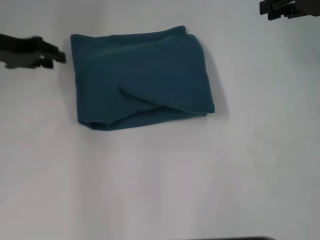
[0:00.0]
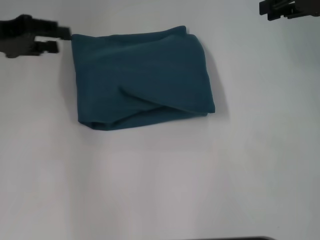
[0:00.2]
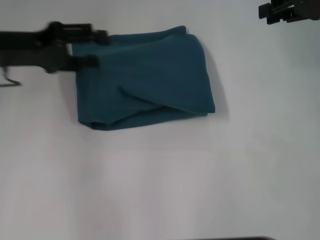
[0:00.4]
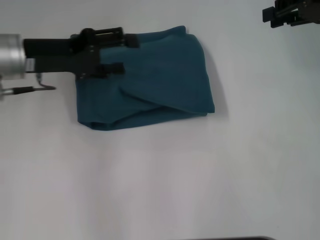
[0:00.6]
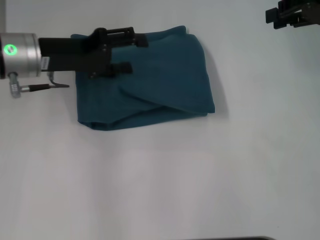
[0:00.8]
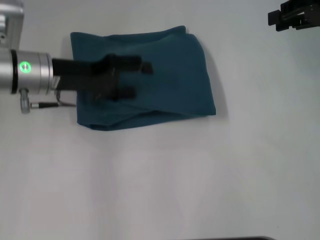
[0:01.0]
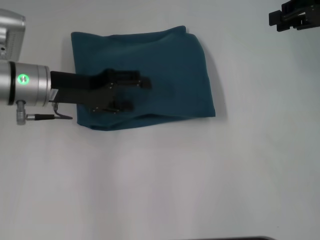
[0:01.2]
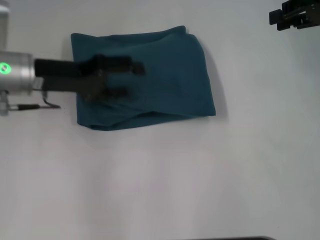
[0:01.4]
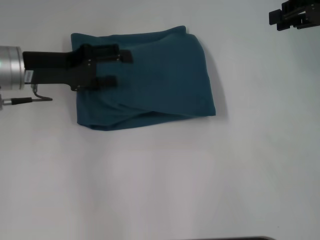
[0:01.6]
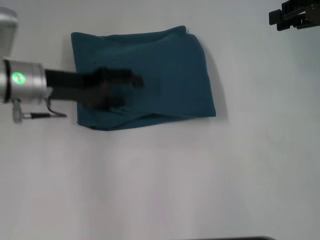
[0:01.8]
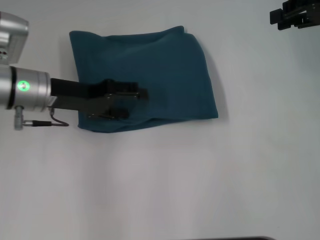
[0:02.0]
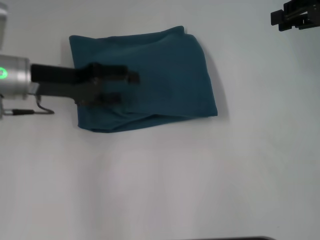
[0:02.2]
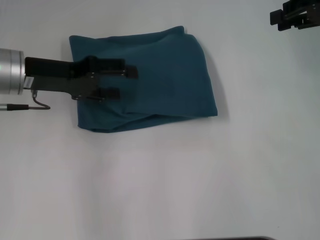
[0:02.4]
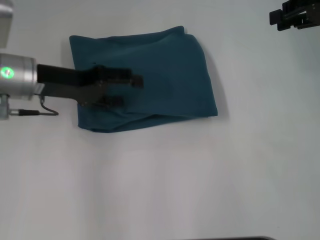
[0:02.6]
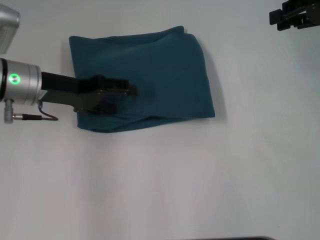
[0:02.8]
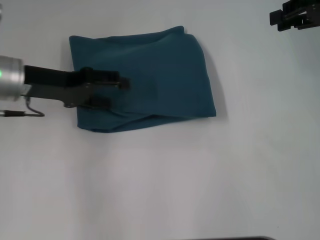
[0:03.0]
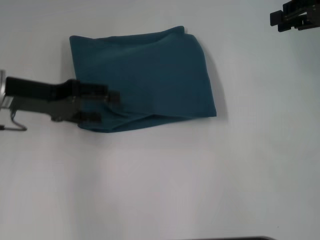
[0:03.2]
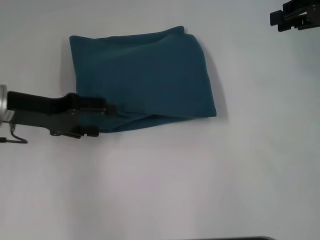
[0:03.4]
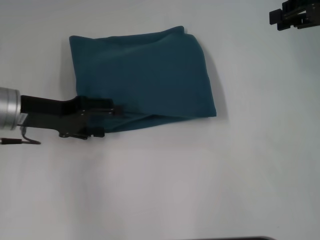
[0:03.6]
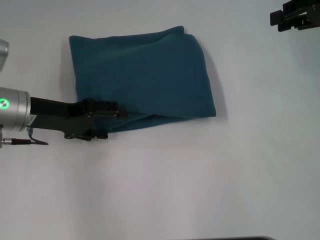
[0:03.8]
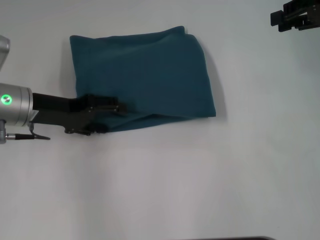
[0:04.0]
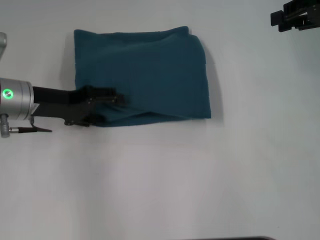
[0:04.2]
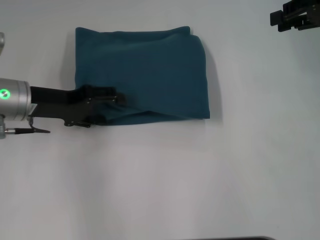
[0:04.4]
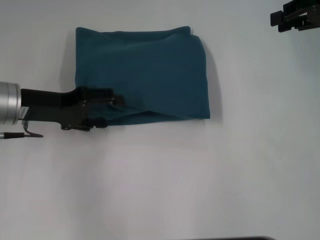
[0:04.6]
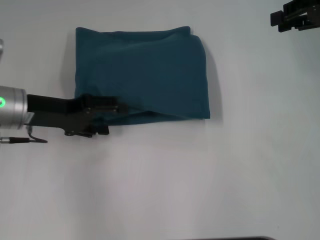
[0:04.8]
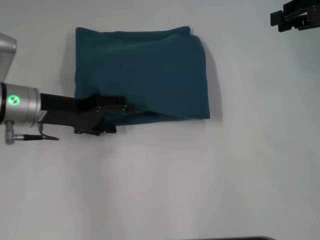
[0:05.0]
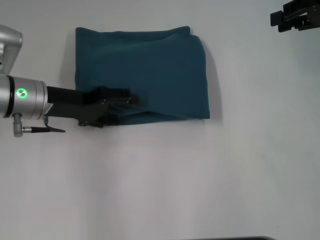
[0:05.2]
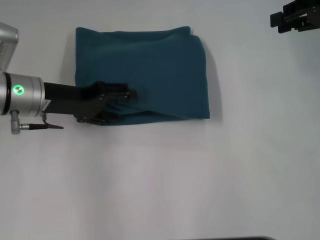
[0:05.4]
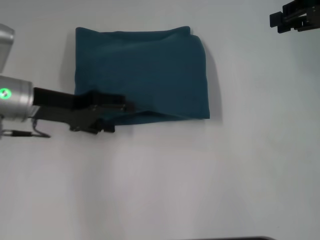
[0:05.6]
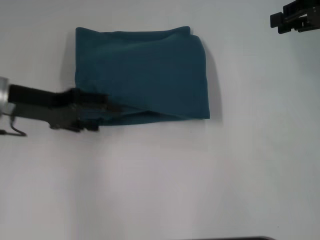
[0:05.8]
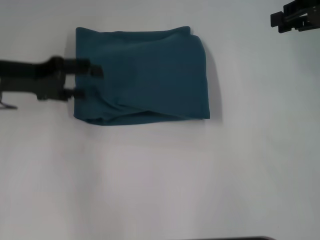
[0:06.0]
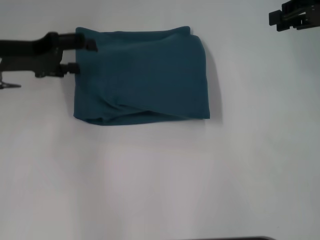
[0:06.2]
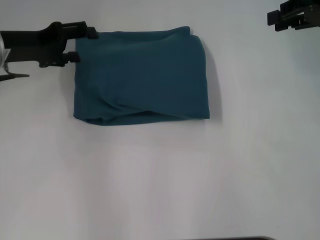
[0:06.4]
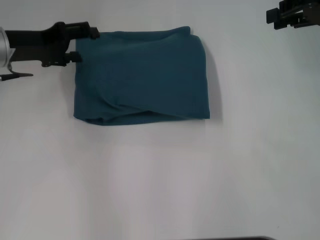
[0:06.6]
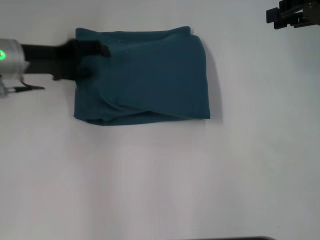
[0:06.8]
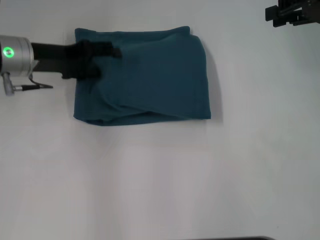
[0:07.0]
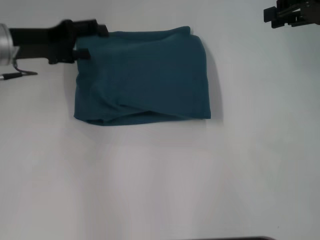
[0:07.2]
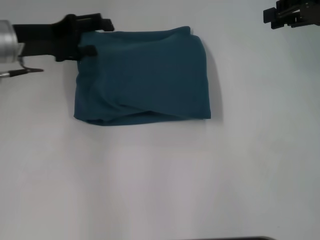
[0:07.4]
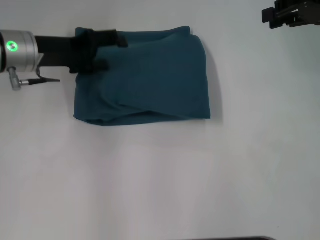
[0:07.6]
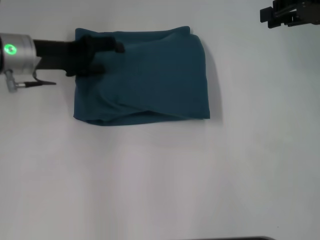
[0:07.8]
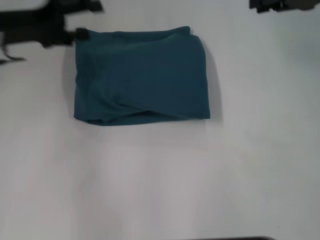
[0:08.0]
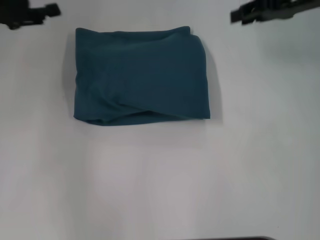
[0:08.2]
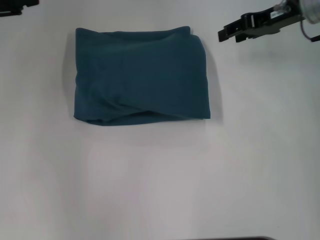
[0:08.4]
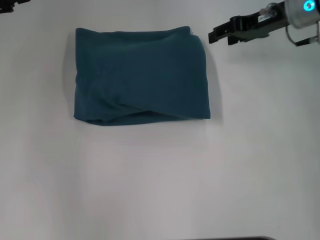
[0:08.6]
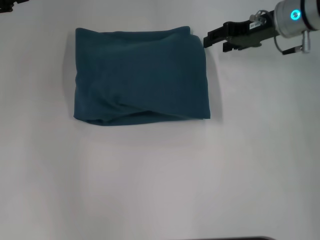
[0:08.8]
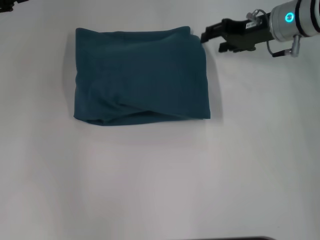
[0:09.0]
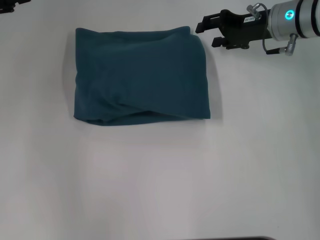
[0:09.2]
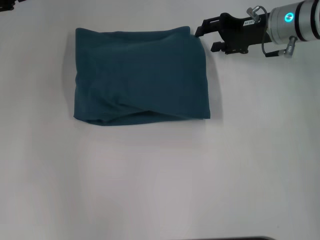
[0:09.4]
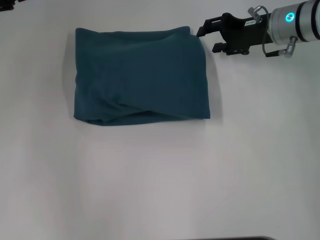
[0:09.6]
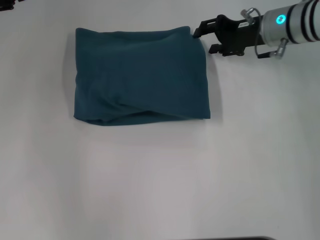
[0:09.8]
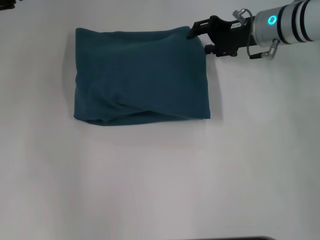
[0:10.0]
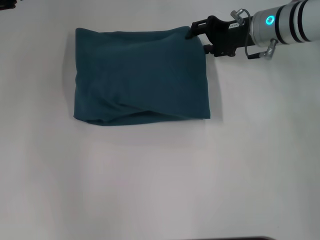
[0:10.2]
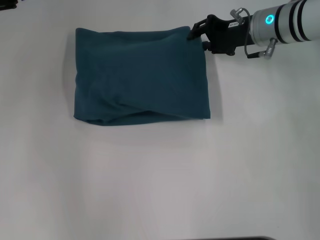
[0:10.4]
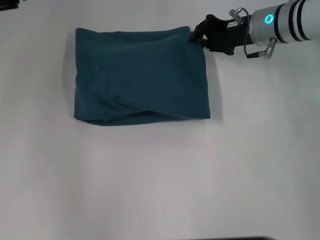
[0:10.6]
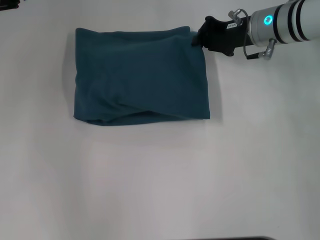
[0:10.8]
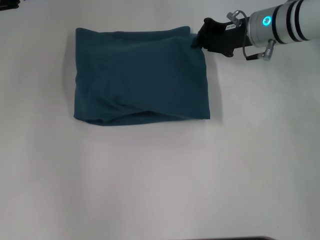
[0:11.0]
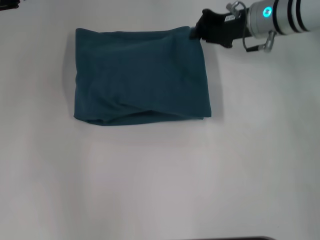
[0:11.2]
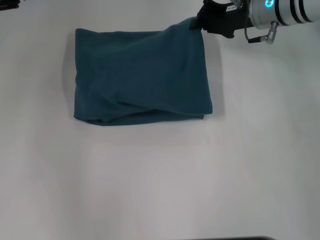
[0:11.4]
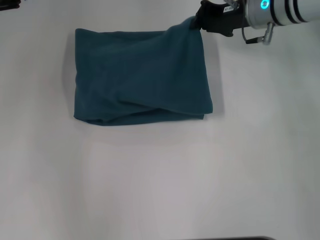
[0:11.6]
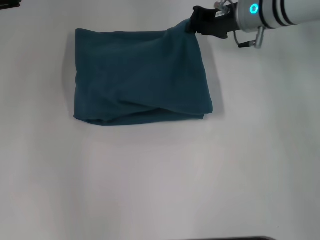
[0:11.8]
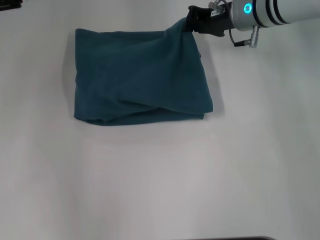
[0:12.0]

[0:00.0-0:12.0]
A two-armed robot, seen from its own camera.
0:00.0 to 0:01.6: The left gripper travels to the right by roughly 5 cm, and opens its fingers.
0:01.6 to 0:04.4: The grippers stay close to where they were, moving slightly.
0:04.4 to 0:06.0: The left gripper moves some 5 cm.
0:06.0 to 0:07.6: The left gripper changes place by approximately 5 cm.
0:07.6 to 0:09.0: The left gripper goes roughly 15 cm to the left and upward, while the right gripper is displaced downward and to the left by about 15 cm.
0:09.0 to 0:10.4: The grippers move only a little.
0:10.4 to 0:12.0: The right gripper closes up.

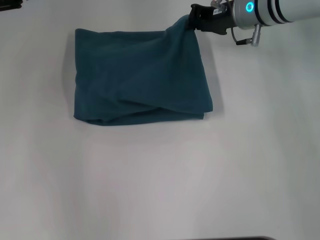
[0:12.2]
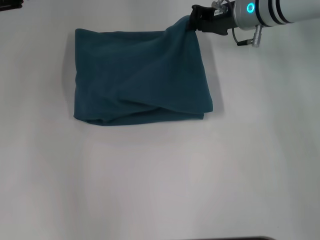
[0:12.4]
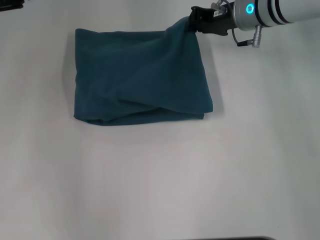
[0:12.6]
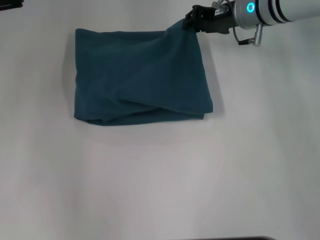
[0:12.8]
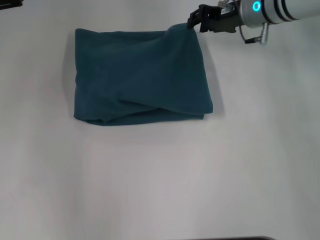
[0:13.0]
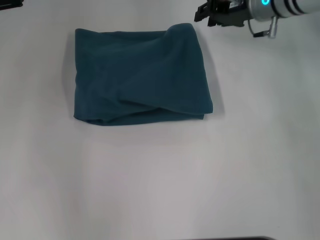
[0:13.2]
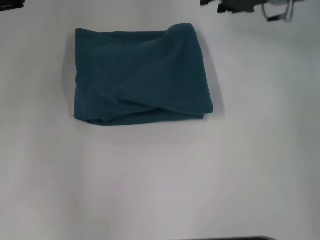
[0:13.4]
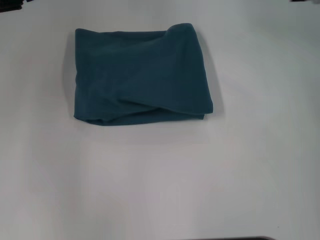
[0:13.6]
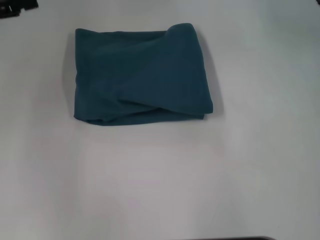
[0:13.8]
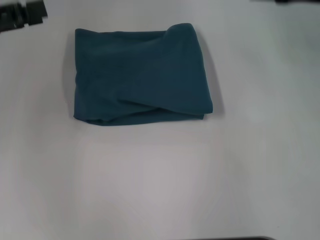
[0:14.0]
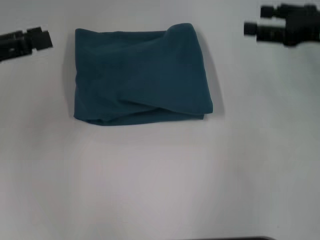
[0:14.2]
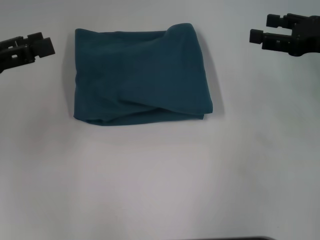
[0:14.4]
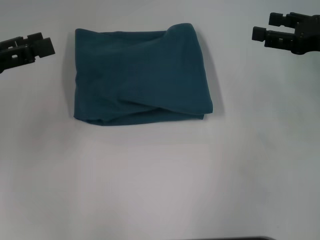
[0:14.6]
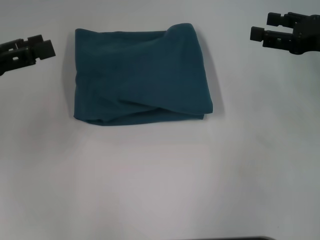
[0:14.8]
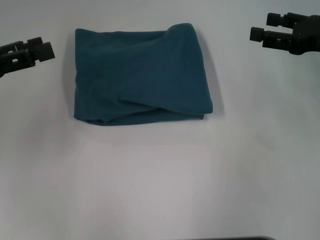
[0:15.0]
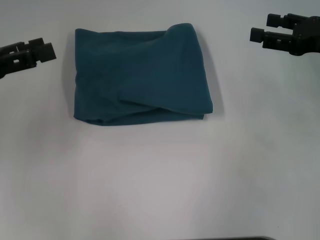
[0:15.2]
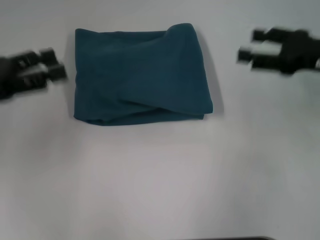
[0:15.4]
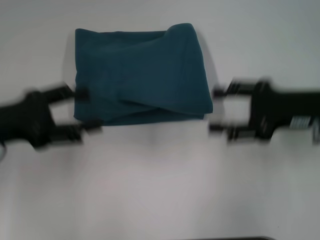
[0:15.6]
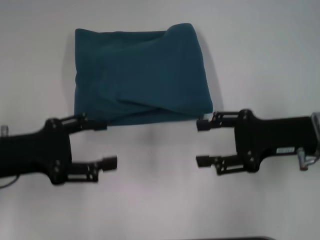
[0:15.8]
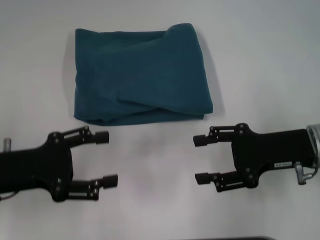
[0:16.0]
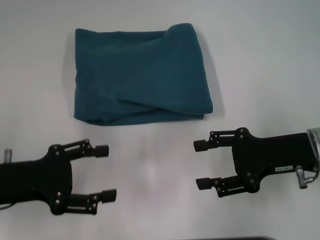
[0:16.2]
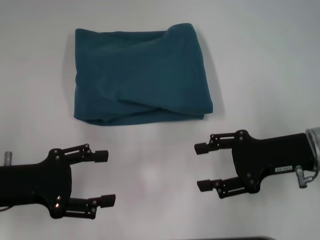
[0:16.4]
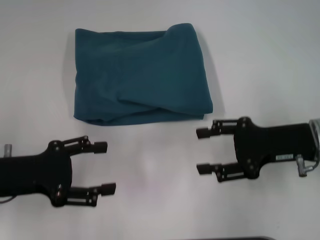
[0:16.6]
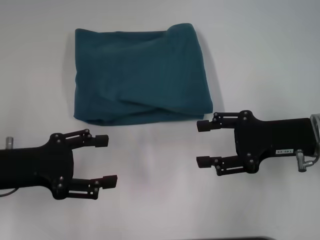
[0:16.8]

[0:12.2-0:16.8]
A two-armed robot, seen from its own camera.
0:12.2 to 0:13.8: The right gripper travels to the right and upward by about 15 cm, and opens its fingers.
0:13.8 to 0:15.2: The left gripper ends up roughly 5 cm from where it was. The right gripper shifts approximately 10 cm backward and downward.
0:15.2 to 0:16.8: The left gripper shifts about 10 cm downward, to the right and backward. Meanwhile the right gripper heads to the left, downward and backward, covering some 10 cm.

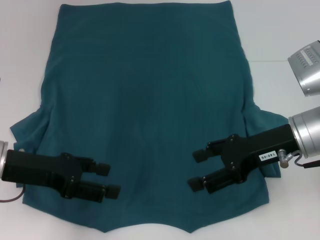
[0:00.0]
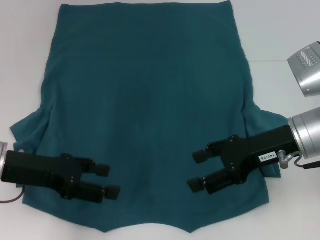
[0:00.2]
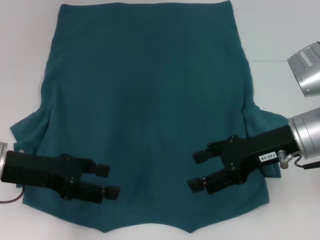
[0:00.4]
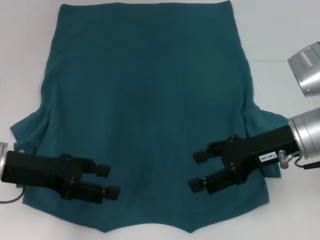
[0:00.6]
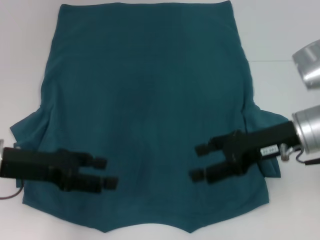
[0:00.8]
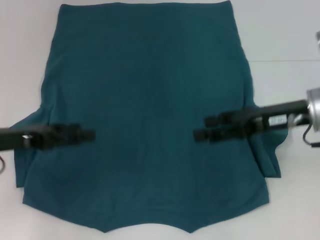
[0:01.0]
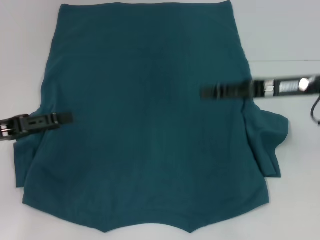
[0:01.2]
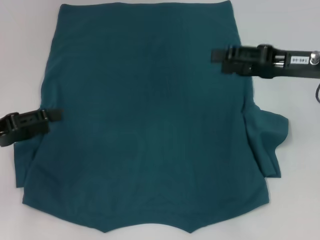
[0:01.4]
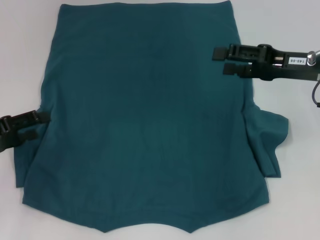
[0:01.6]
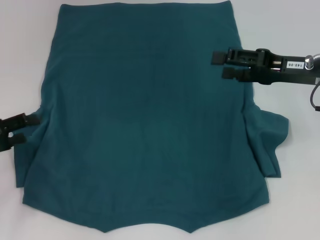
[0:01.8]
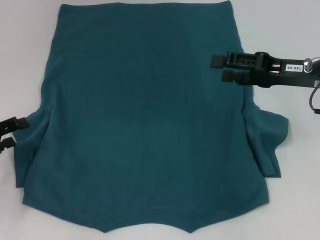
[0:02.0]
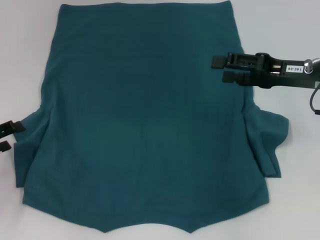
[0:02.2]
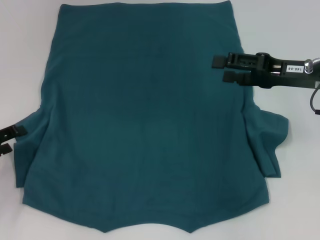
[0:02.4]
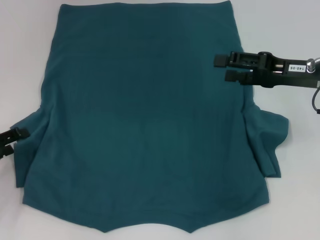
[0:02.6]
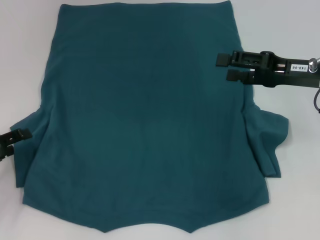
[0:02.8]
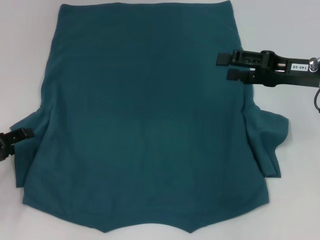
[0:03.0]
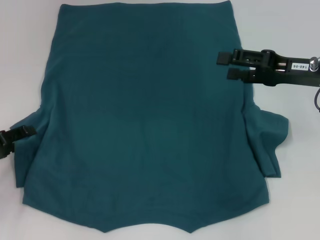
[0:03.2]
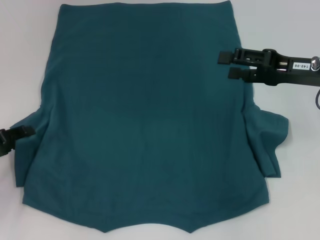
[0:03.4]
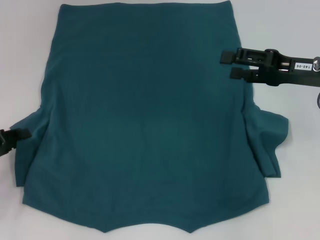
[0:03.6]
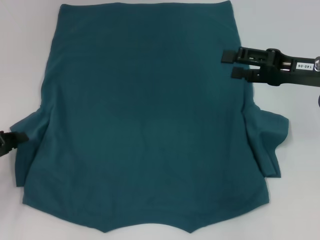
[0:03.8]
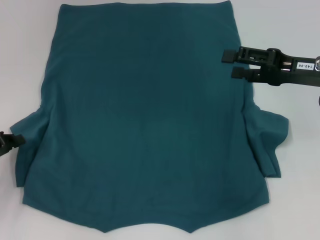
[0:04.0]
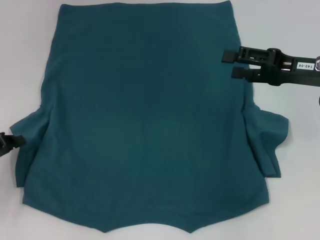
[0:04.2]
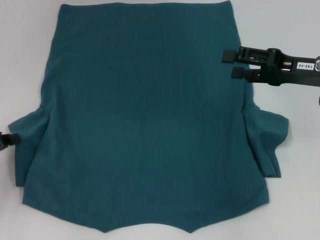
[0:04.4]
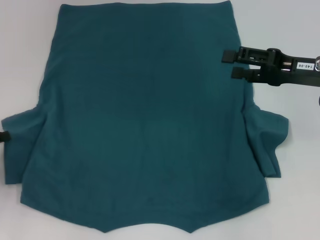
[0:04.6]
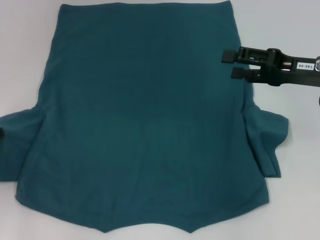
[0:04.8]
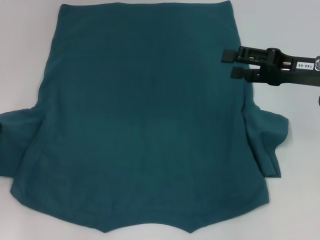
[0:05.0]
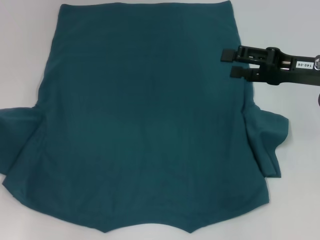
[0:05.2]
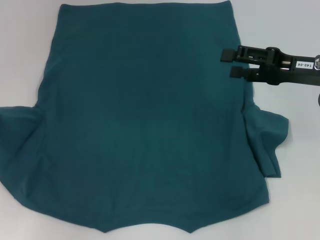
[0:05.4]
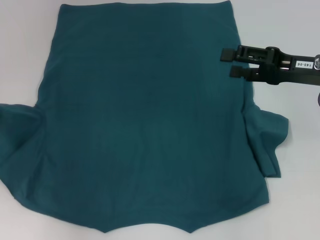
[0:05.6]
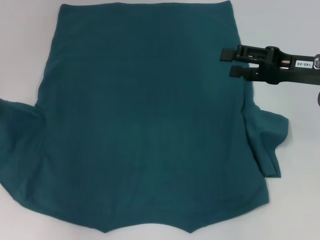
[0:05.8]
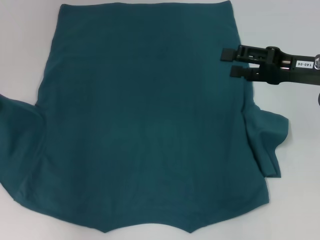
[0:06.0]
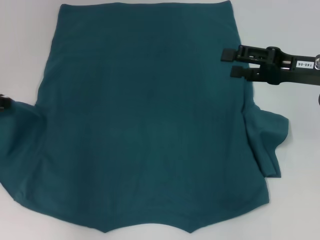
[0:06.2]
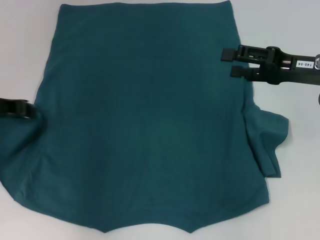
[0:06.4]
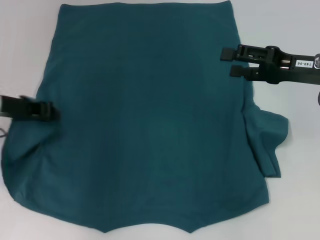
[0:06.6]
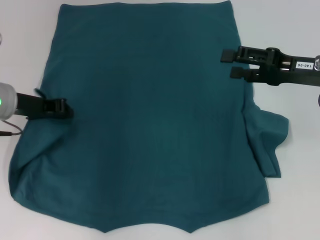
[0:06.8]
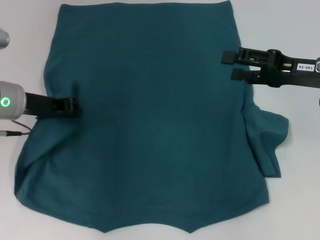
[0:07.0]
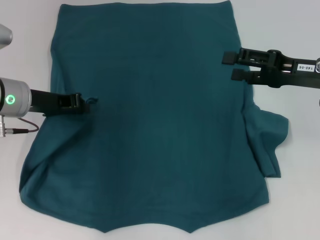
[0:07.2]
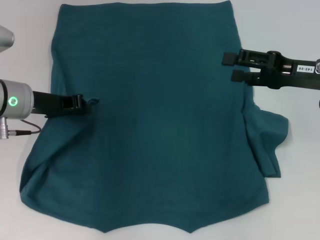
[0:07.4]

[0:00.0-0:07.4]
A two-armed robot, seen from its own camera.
0:00.0 to 0:01.4: The right gripper ends up approximately 10 cm from where it was, while the left gripper shifts some 5 cm to the left.
0:01.4 to 0:03.0: The left gripper moves downward, approximately 5 cm.
0:03.0 to 0:04.4: The left gripper closes.
0:04.4 to 0:06.0: The left gripper moves upward and forward, about 10 cm.
0:06.0 to 0:07.4: The left gripper moves to the right, some 10 cm.
